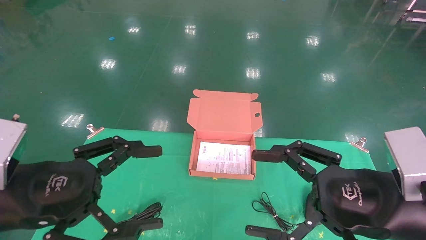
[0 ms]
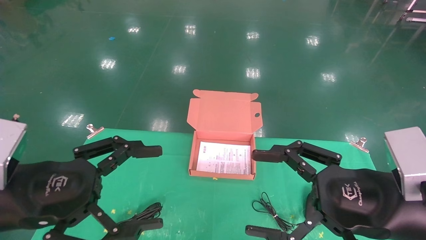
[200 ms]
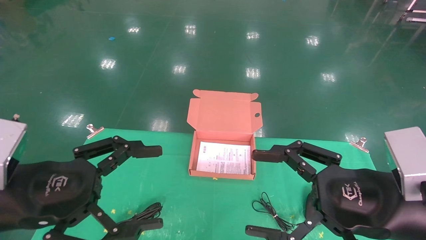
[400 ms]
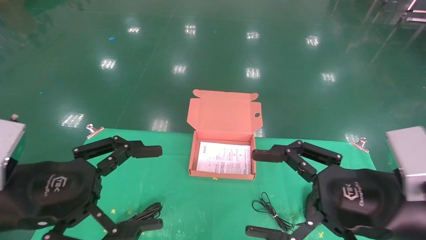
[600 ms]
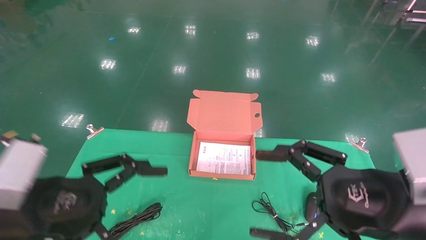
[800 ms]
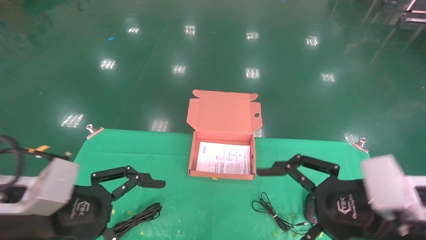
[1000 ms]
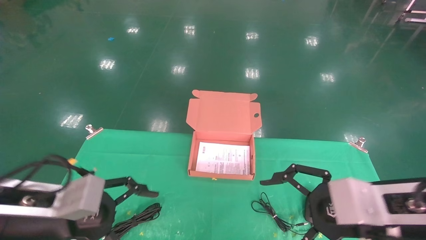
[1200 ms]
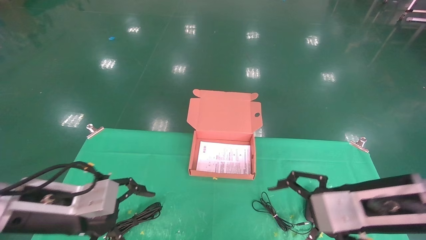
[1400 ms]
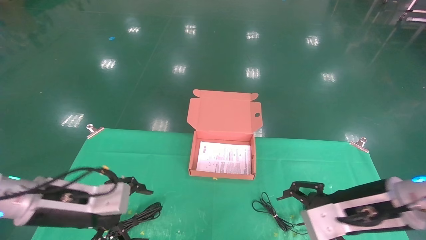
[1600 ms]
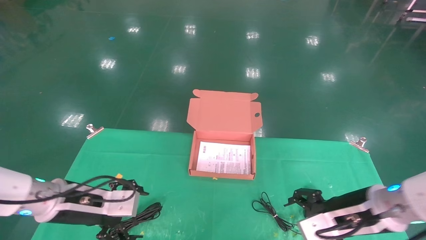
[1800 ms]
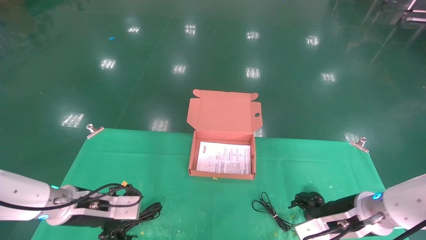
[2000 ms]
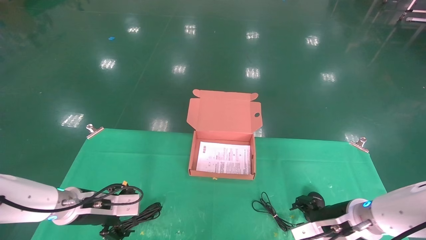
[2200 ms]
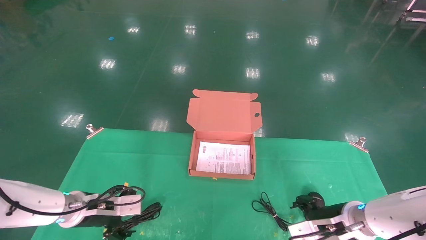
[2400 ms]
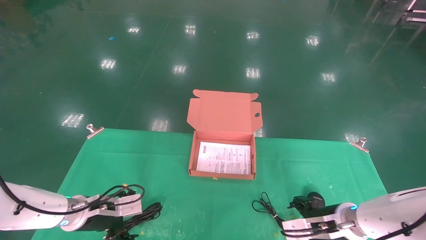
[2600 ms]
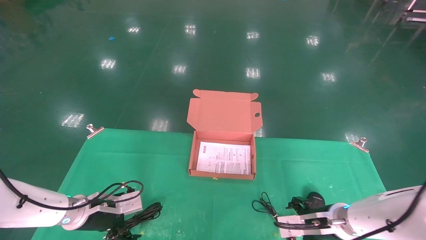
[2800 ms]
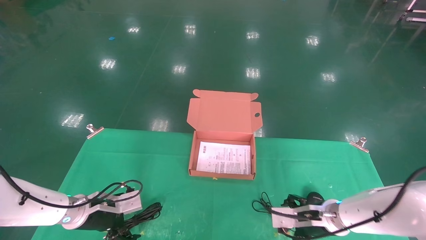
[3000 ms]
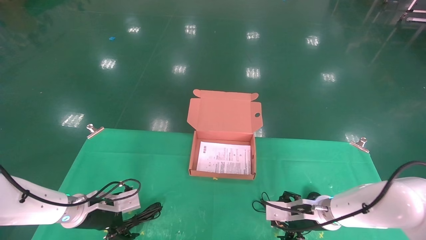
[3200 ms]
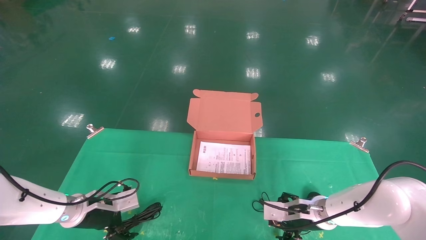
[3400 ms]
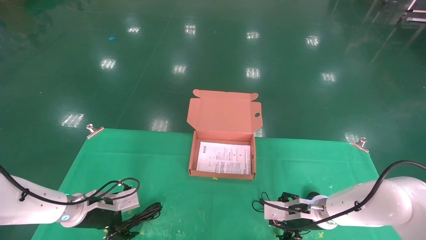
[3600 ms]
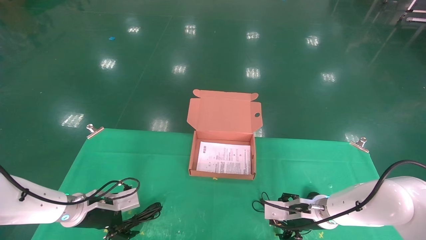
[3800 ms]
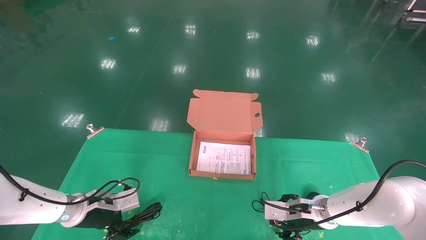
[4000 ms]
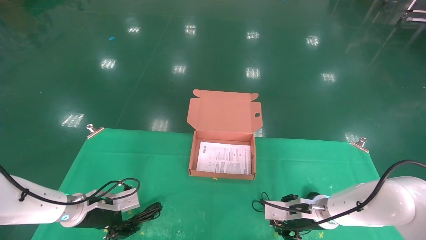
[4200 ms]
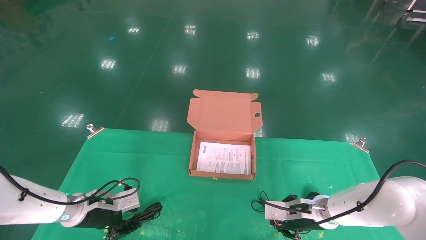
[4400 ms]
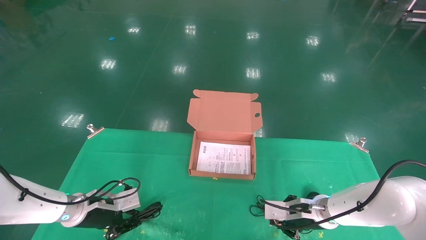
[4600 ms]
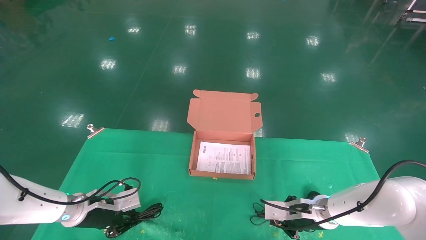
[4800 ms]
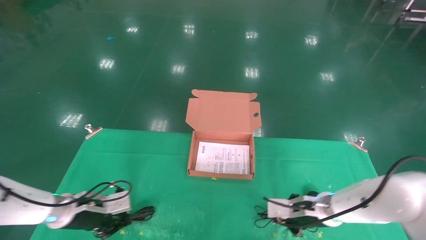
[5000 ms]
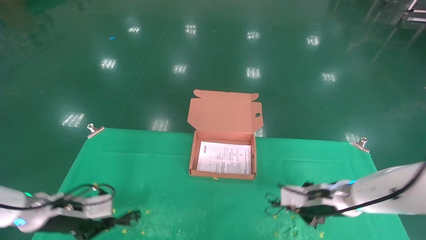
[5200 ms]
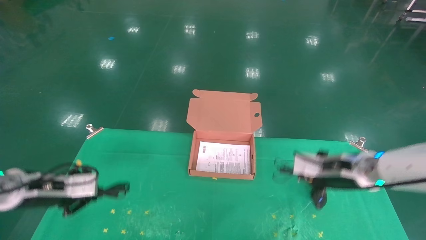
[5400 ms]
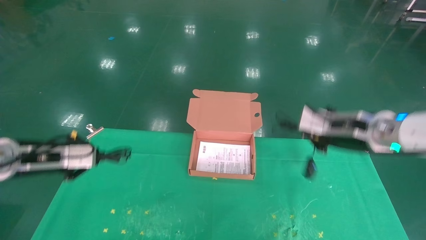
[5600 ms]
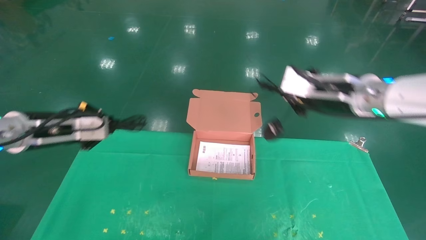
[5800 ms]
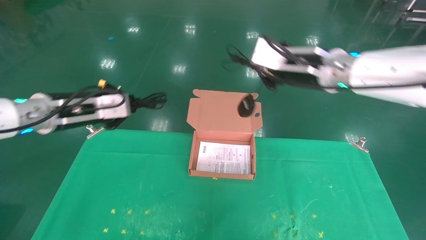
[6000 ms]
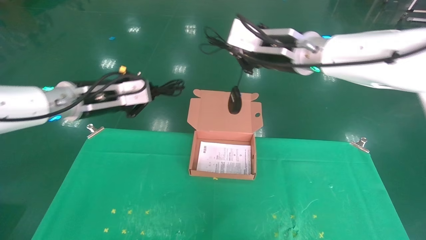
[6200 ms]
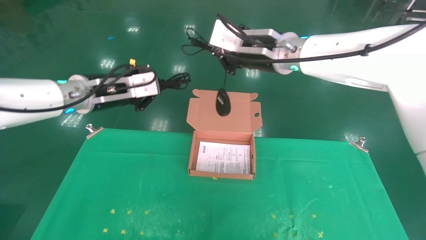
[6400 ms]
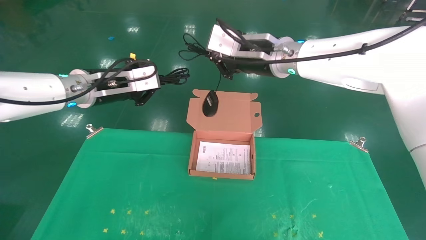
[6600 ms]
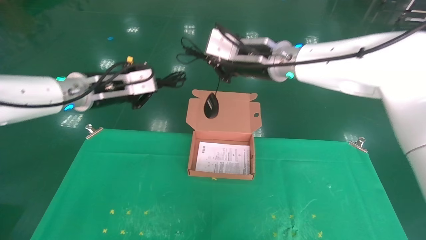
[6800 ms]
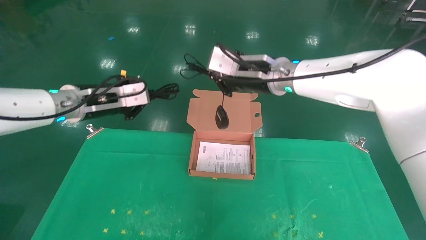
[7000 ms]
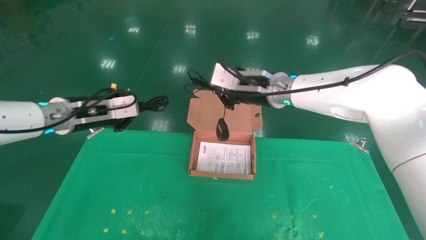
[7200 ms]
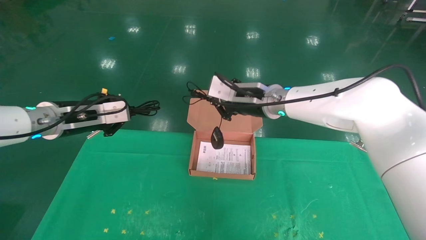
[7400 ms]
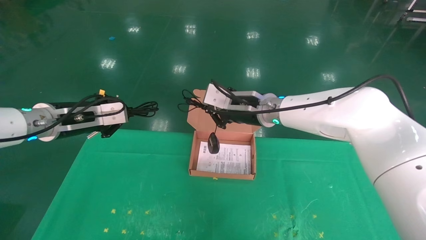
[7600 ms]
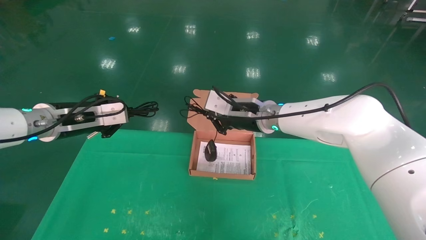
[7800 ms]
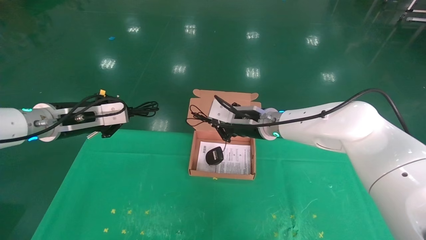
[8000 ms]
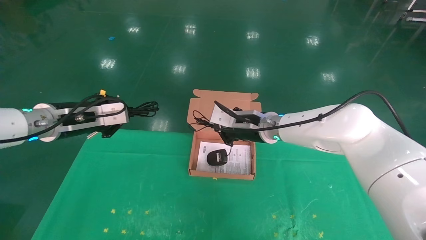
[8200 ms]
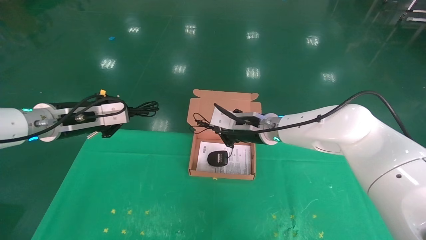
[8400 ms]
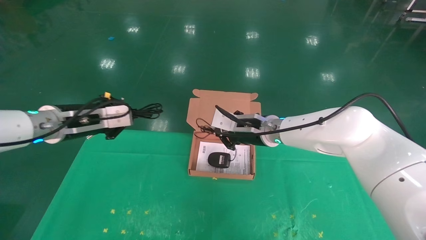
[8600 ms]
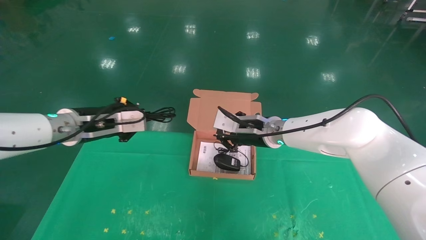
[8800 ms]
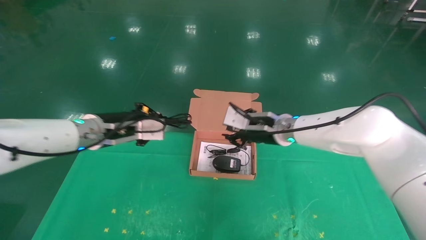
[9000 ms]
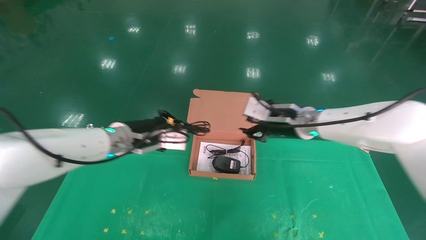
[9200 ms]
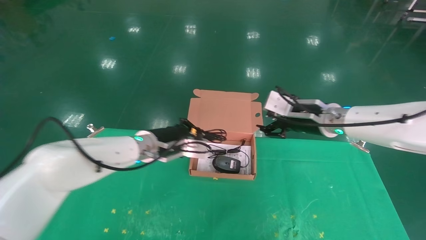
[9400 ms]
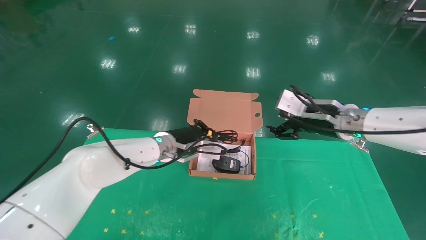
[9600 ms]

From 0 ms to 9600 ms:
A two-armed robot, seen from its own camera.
Task of the whole recording: grasp data cable left put into box grasp mouse right put into box.
Step, from 1000 ms to 5000 ms: Grab and pick up both the mouse and power cord from the accessory packaging area at the same time.
From 0 ms to 1600 ms: The two grippers go some 10 cm forward and downward.
From 1600 ms to 3200 ms: The grippers both shift downward and forward by about 15 cm.
From 3200 ms to 4800 ms: The left gripper closes. Meanwhile the right gripper closes up.
From 4800 ms to 6400 ms: Both grippers travel together upward, approximately 30 cm.
From 6400 ms to 8000 ms: The left gripper moves to the left, roughly 5 cm; the right gripper heads downward, covering roughly 15 cm.
From 8000 ms to 9600 ms: The right gripper is displaced to the right by roughly 15 cm, and opens its fingers. Meanwhile the left gripper moves to the right, downward and forward, about 25 cm.

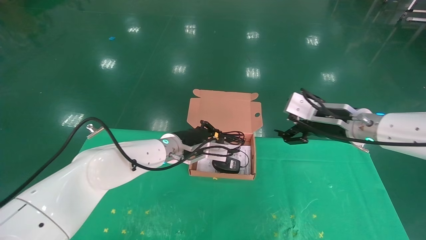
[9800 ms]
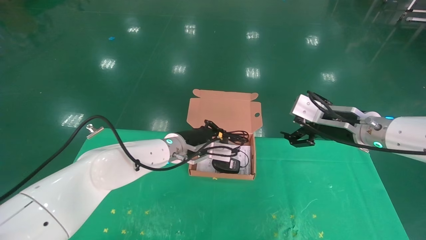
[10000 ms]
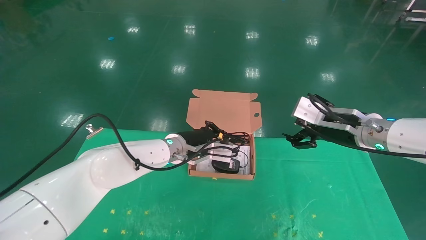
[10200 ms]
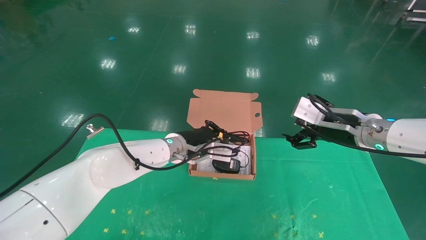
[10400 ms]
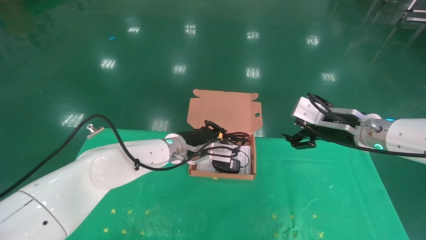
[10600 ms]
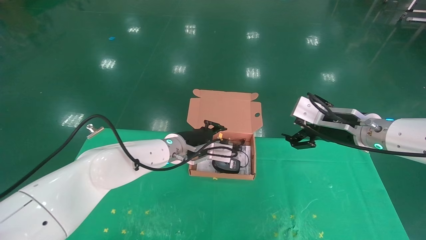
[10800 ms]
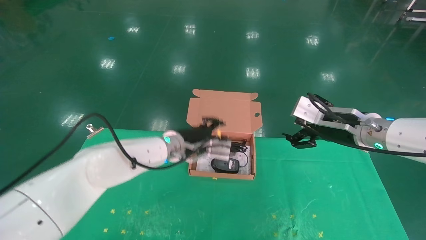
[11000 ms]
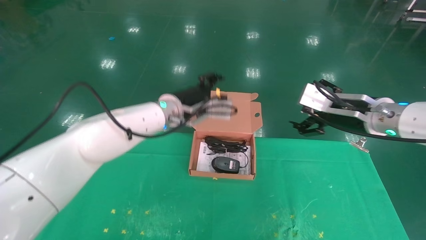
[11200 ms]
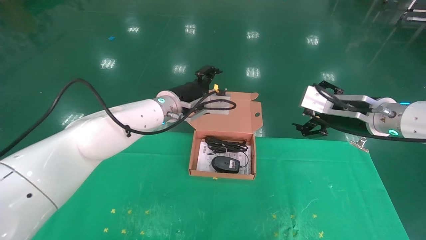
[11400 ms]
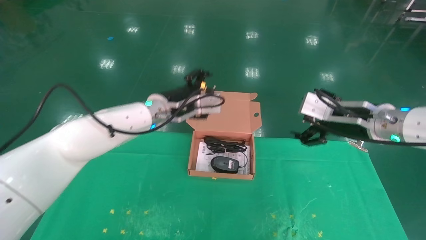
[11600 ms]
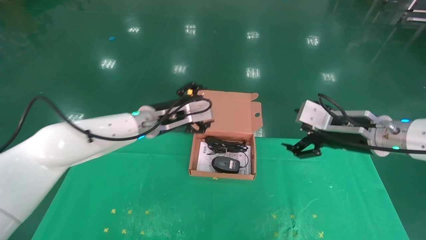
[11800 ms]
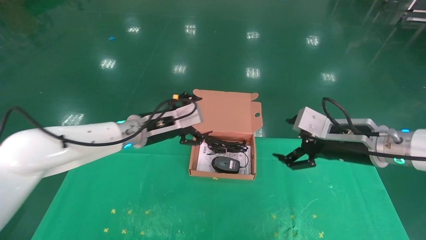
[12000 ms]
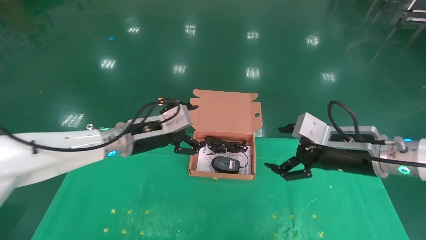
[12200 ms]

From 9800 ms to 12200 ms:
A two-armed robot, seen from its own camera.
Task of the whole recording: grasp data cable left put into box grasp mouse right put into box.
From 9800 ms to 11000 ms: The grippers stay close to where they were, moving slightly.
From 11000 ms to 12200 ms: The left gripper moves to the left and backward, about 10 cm, and opens its fingers; the right gripper moves backward, approximately 5 cm.
